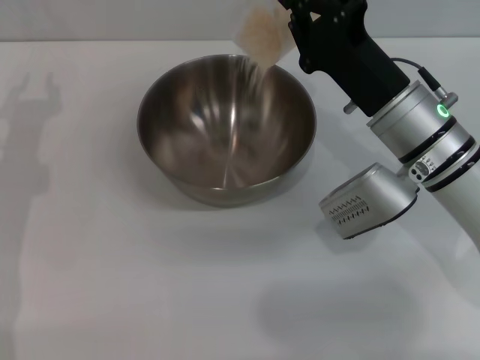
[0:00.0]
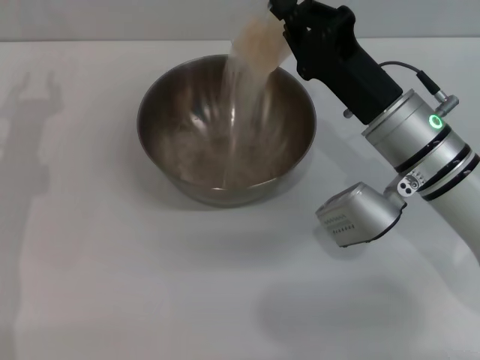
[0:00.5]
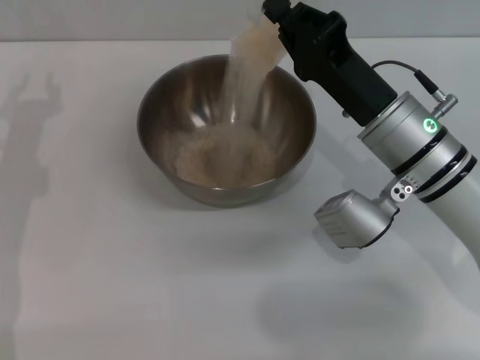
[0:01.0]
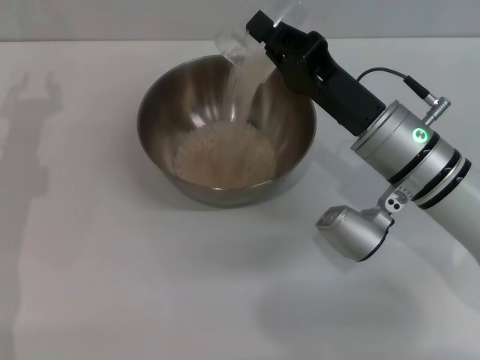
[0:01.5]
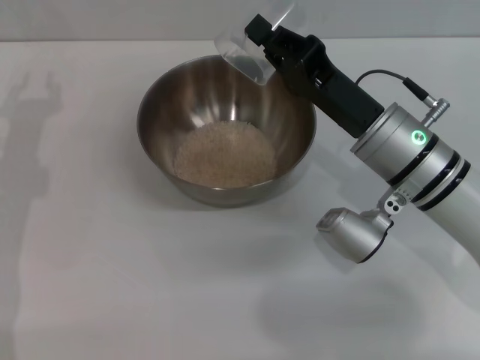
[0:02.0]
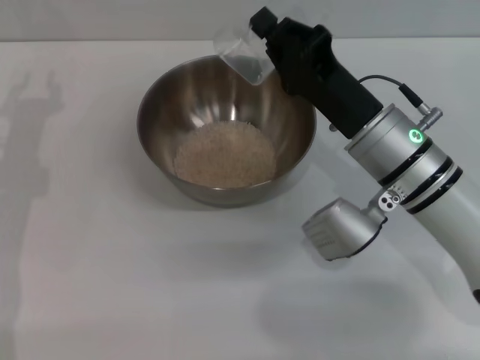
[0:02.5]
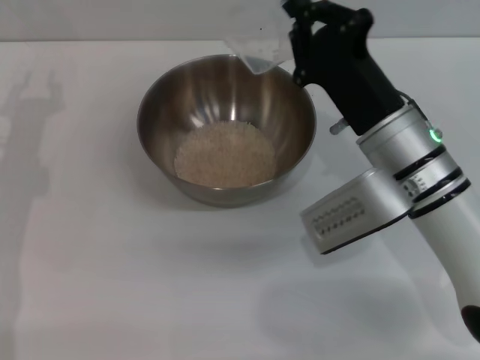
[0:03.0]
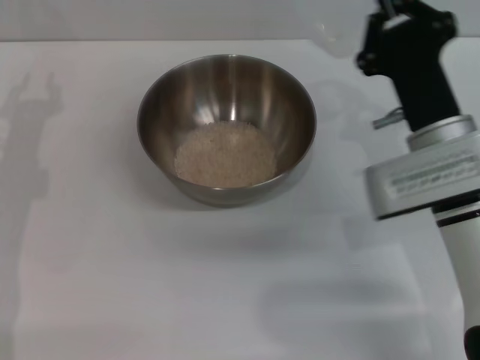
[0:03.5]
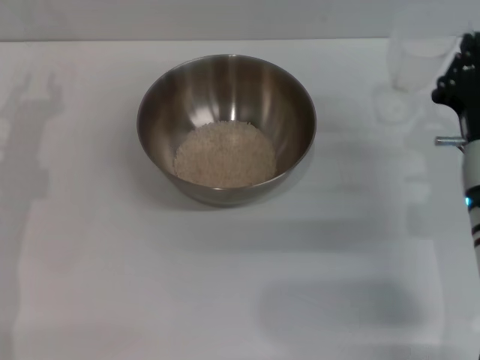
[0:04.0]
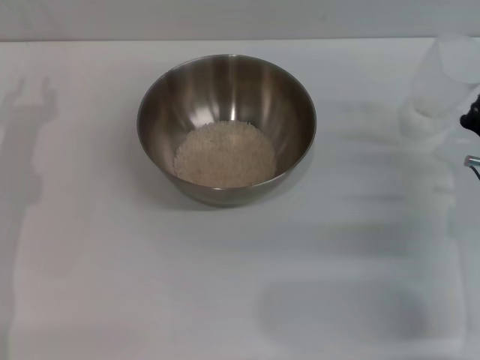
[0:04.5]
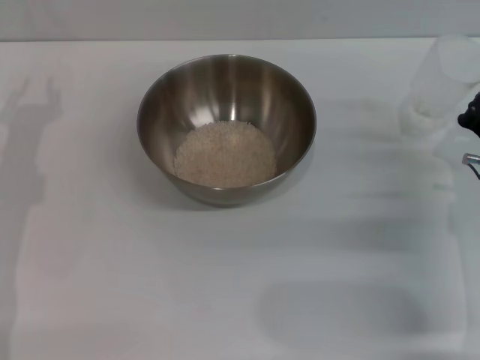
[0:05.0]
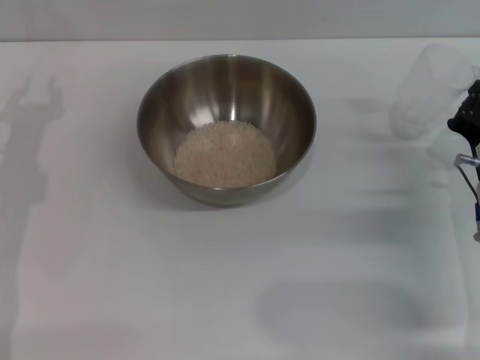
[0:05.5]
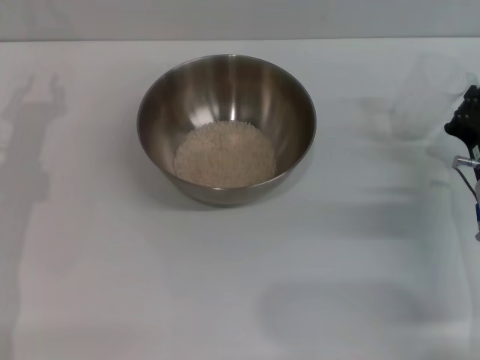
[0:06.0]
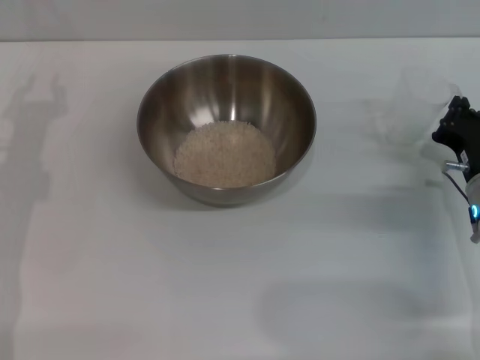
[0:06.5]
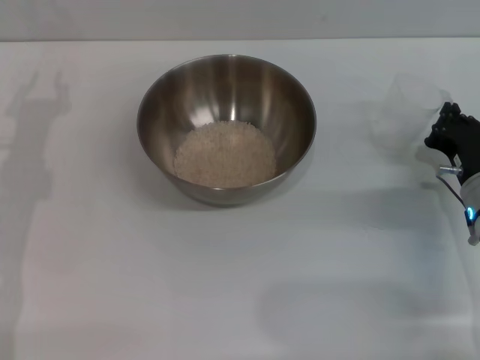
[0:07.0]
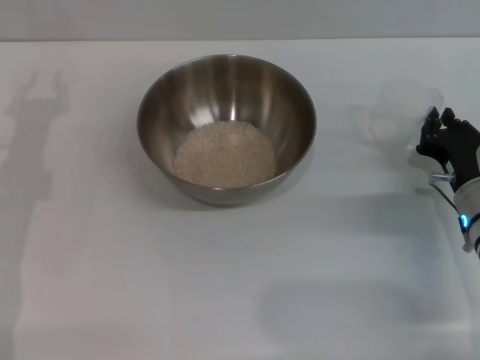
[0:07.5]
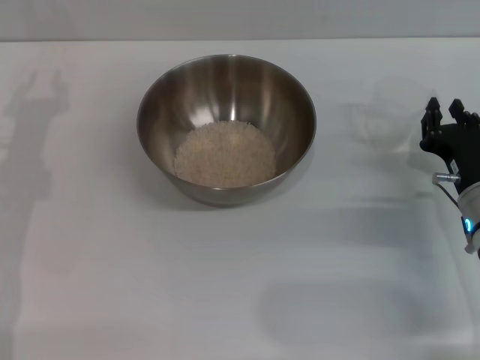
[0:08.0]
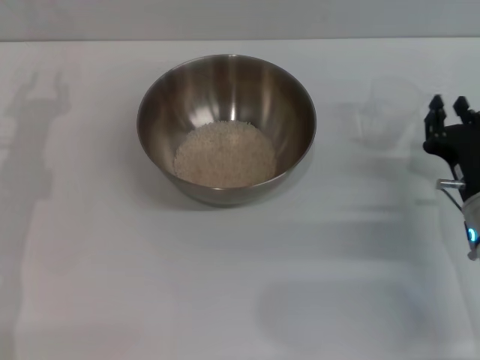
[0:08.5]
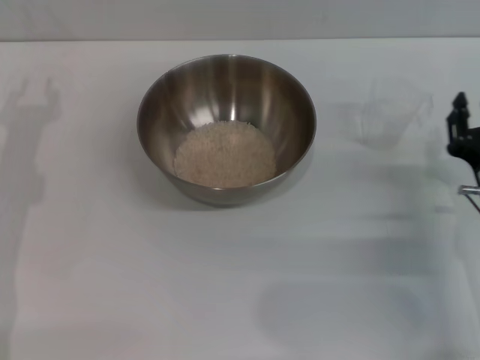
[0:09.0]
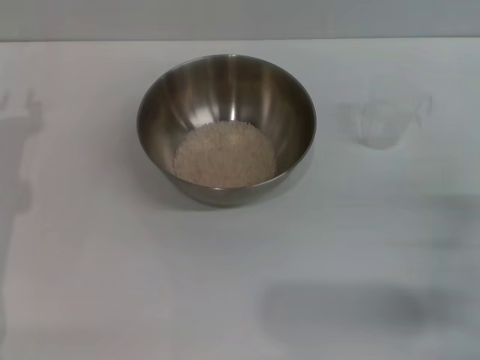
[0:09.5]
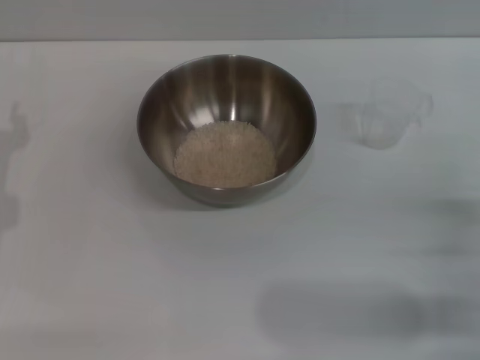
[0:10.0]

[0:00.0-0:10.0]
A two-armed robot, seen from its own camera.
Task of the whole recording: Place the bowl in the middle of the table with one hand and pour the rice from the grain cup into it with the other hand.
Step, 0:00.0 to 0:03.5: Pour the rice from the cup into the bowl with the right gripper.
Step, 0:04.0 to 0:08.5: Place the cup on the table with the right gripper.
0:02.0 to 0:04.0: The right gripper is displaced to the right by roughly 5 cm.
0:04.0 to 0:06.0: The right gripper changes place by some 5 cm.
0:06.0 to 0:08.0: The grippers make only small movements.
0:08.0 to 0:10.0: The right gripper travels backward and to the right by roughly 10 cm, and opens its fingers.
